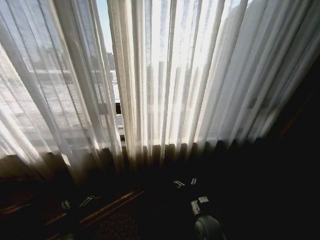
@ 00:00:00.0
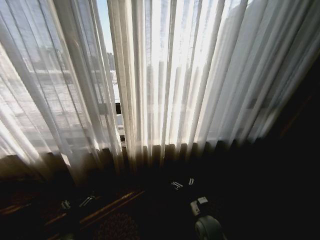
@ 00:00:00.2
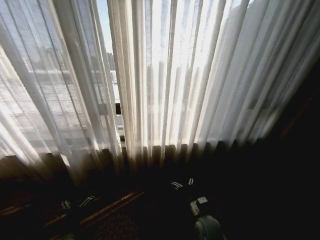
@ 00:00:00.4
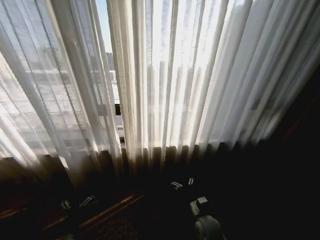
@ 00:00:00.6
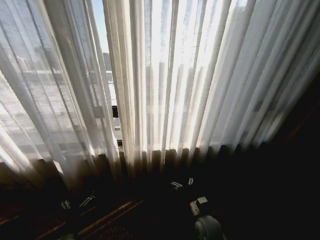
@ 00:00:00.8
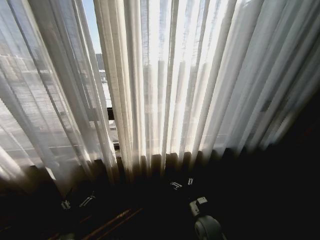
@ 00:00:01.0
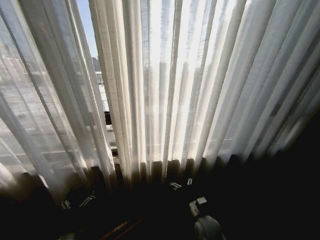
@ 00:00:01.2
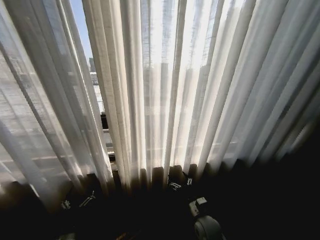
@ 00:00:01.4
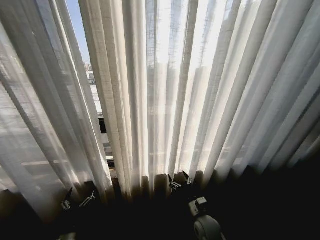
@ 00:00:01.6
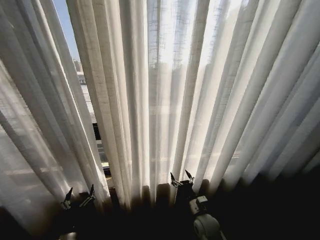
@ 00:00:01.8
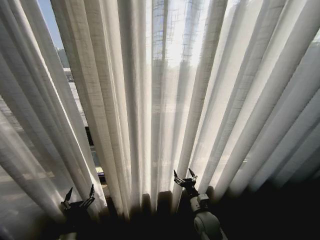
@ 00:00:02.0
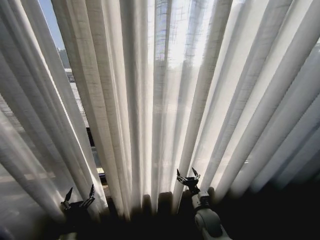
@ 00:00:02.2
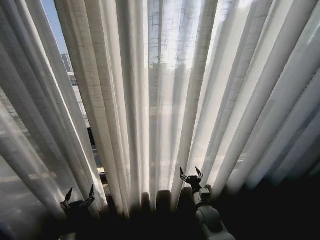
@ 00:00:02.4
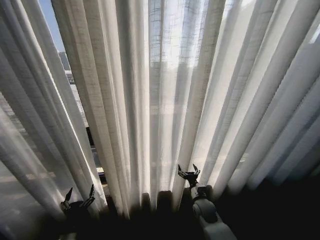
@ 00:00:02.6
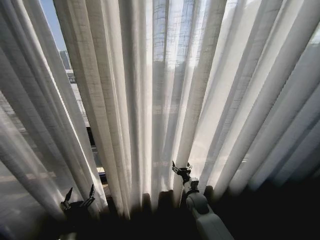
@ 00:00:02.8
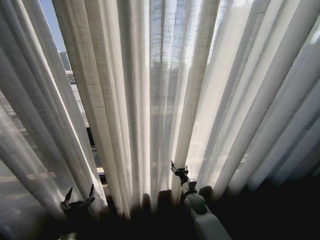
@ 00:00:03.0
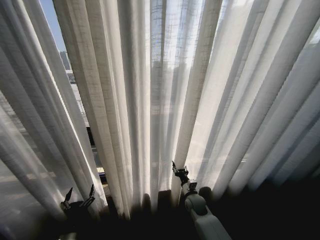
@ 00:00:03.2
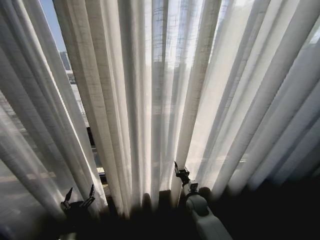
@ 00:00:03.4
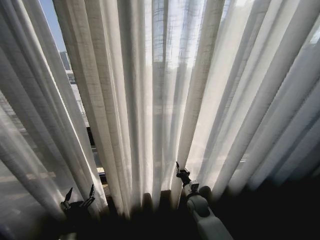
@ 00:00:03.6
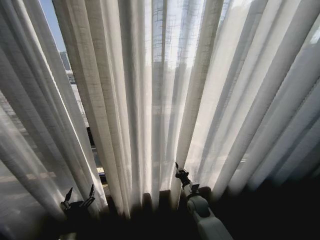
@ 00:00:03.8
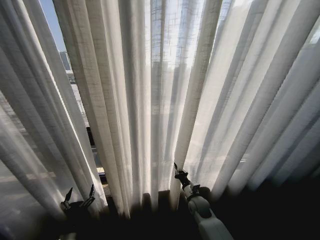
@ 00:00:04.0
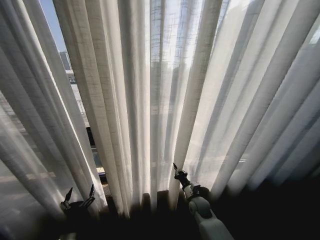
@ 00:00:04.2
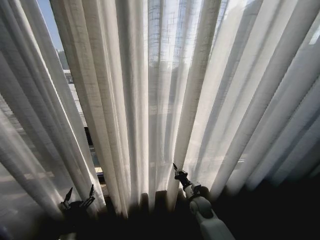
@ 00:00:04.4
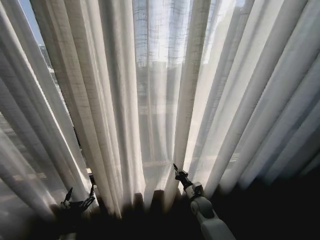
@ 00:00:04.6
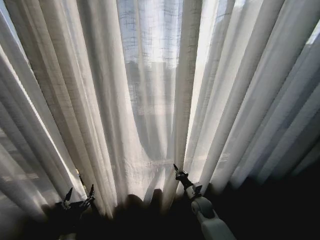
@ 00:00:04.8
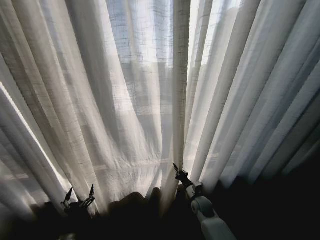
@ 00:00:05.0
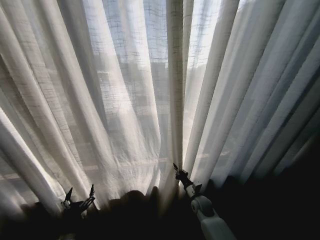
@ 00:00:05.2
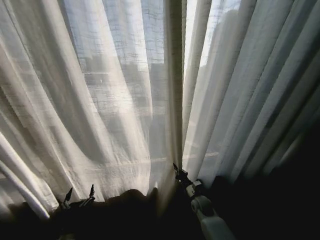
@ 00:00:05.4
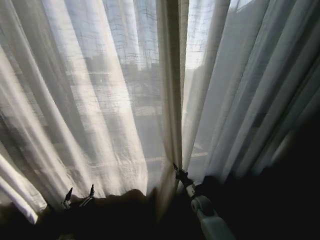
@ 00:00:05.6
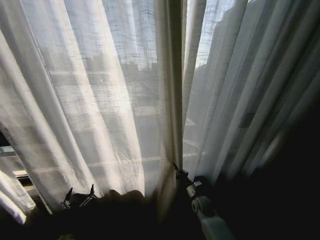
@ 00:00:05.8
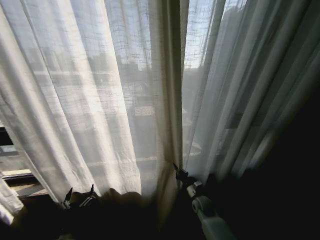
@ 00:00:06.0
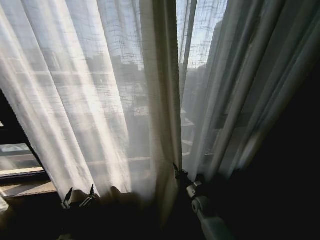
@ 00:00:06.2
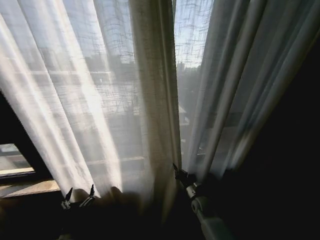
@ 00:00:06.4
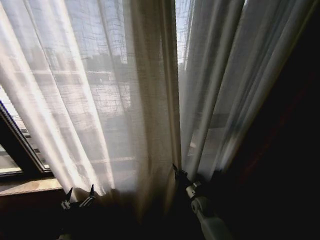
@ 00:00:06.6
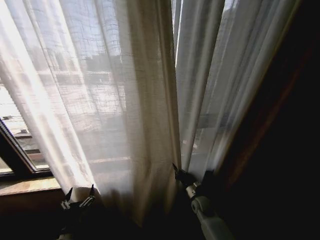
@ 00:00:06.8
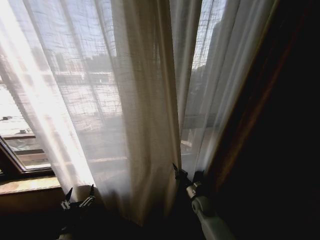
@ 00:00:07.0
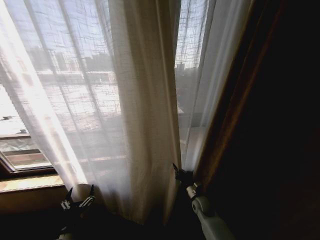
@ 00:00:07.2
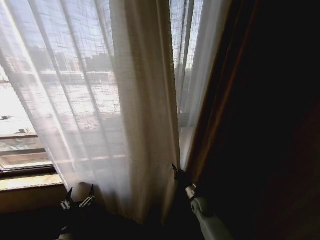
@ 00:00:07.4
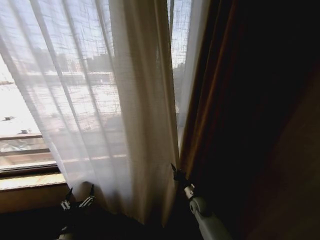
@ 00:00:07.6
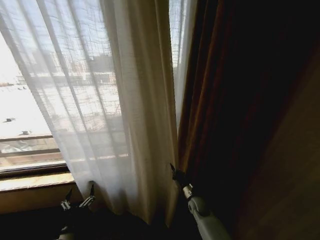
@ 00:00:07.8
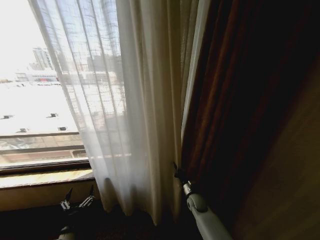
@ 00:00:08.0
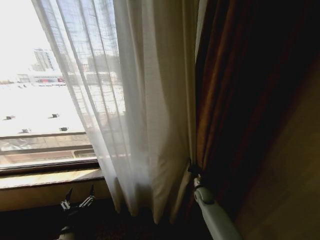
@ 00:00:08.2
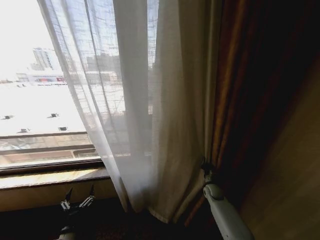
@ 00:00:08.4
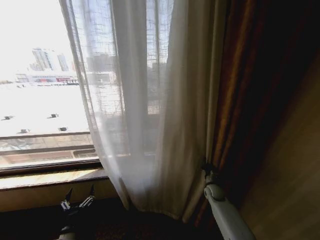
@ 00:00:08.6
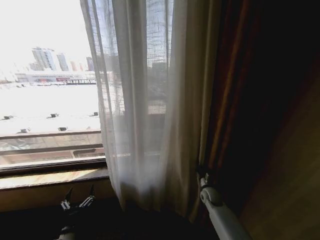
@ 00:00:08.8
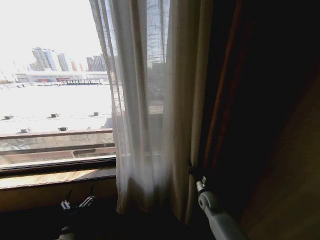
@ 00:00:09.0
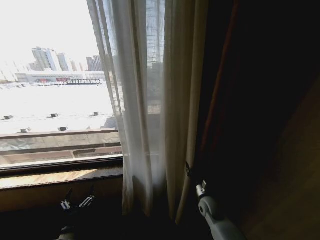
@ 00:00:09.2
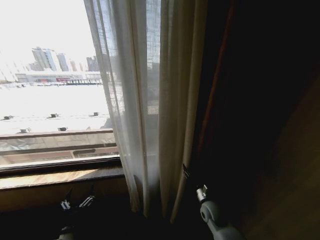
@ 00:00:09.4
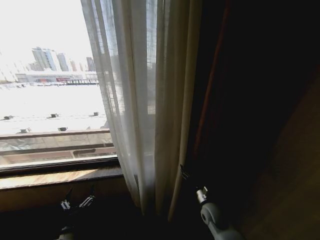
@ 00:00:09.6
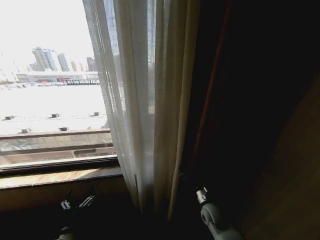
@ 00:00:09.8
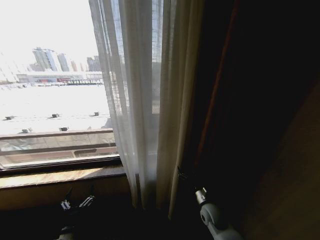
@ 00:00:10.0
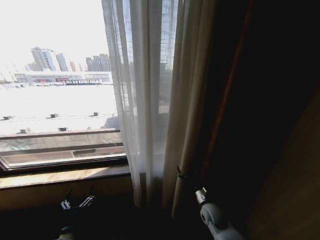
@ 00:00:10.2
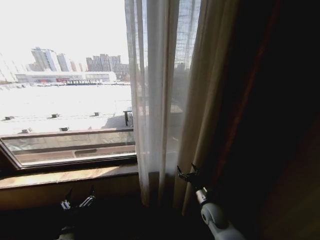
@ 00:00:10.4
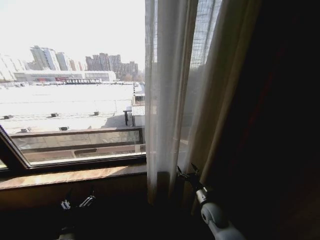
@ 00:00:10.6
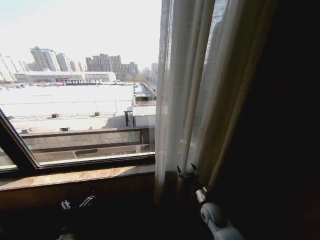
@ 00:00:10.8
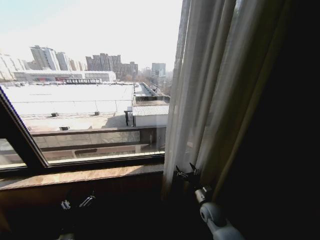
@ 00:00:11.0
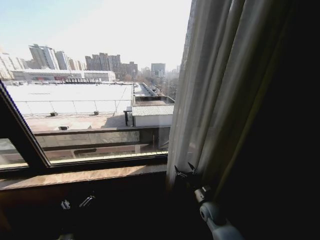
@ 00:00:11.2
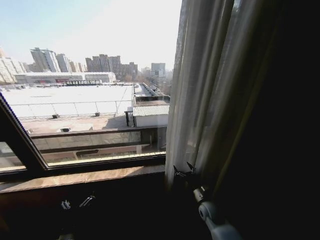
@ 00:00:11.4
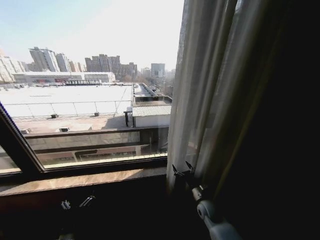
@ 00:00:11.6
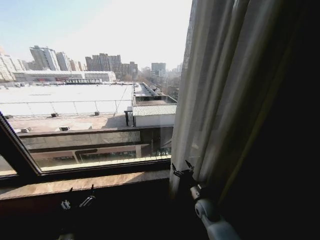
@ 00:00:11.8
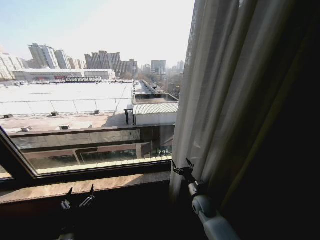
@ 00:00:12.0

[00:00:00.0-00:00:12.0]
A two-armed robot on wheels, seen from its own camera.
Task of the whole recording: Open the curtains by pulling them apart, changing their state from closed to fully open.
00:00:01.6 to 00:00:03.0: The right gripper goes about 10 cm forward.
00:00:03.0 to 00:00:04.4: The right gripper closes its fingers.
00:00:09.0 to 00:00:10.4: The right gripper goes about 5 cm backward, and opens.

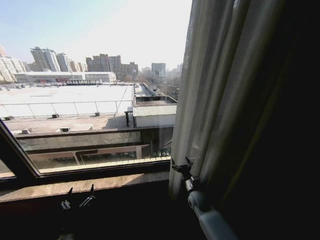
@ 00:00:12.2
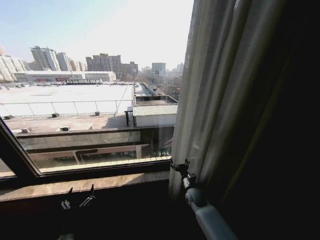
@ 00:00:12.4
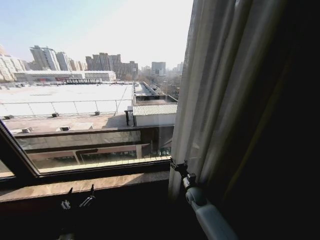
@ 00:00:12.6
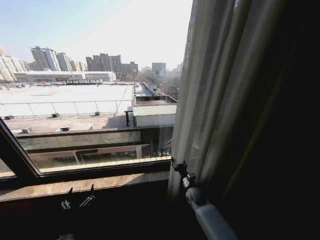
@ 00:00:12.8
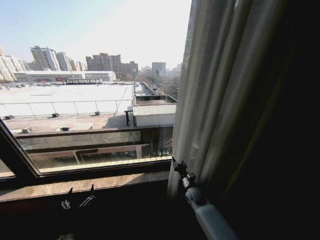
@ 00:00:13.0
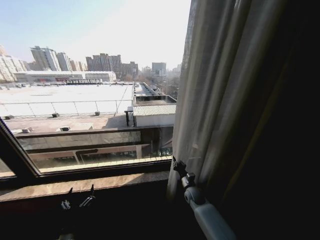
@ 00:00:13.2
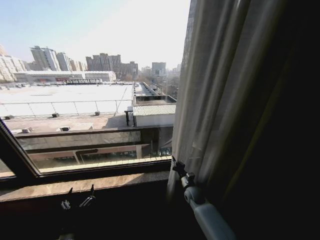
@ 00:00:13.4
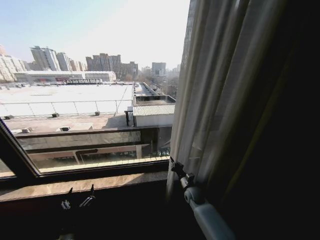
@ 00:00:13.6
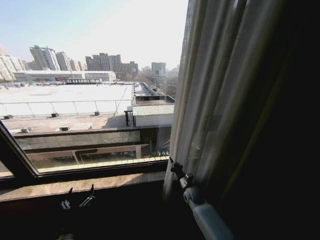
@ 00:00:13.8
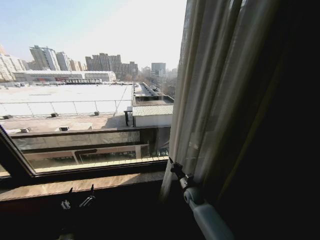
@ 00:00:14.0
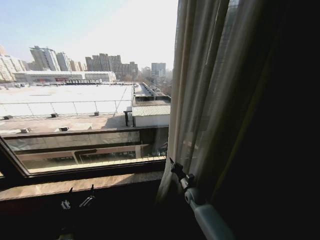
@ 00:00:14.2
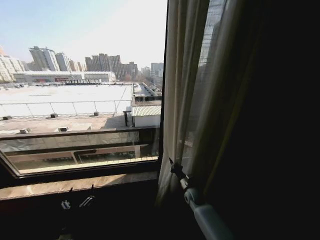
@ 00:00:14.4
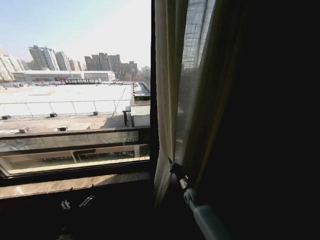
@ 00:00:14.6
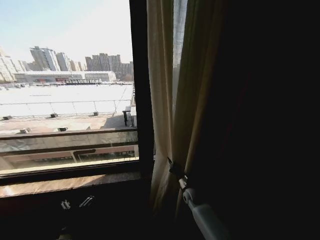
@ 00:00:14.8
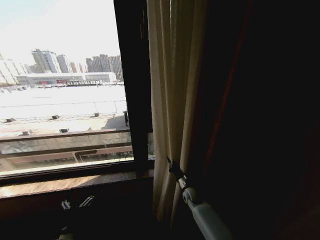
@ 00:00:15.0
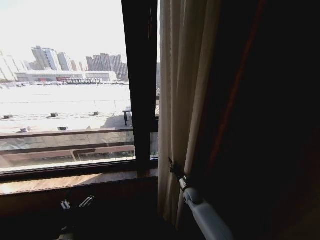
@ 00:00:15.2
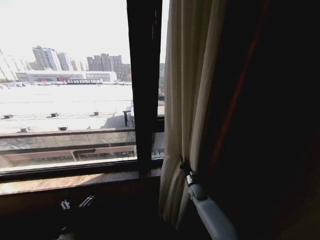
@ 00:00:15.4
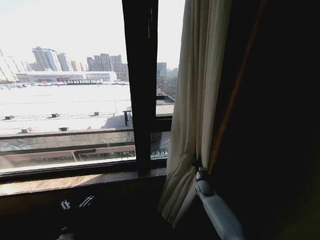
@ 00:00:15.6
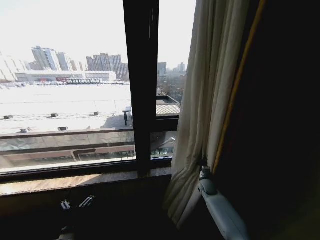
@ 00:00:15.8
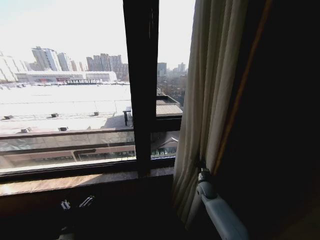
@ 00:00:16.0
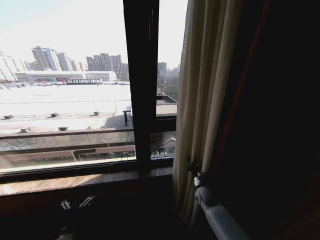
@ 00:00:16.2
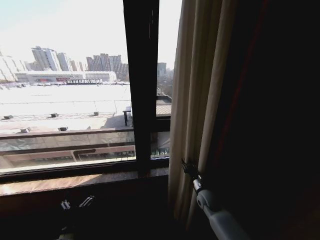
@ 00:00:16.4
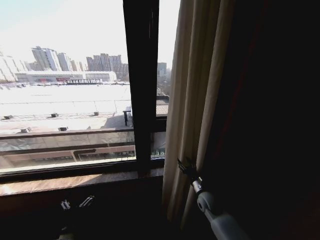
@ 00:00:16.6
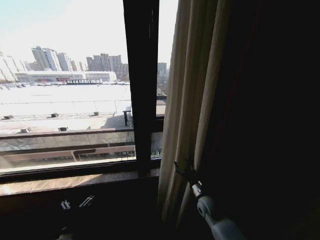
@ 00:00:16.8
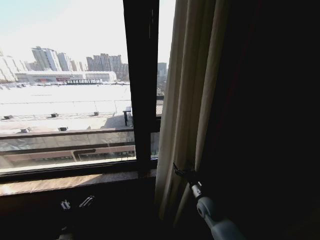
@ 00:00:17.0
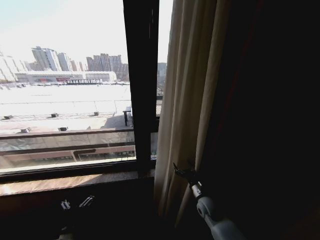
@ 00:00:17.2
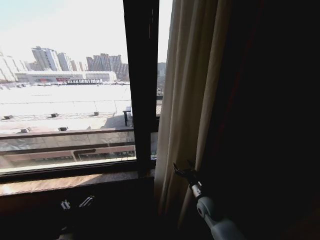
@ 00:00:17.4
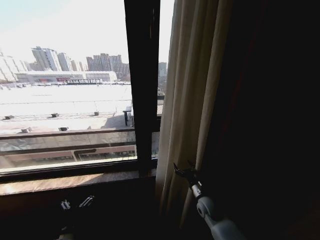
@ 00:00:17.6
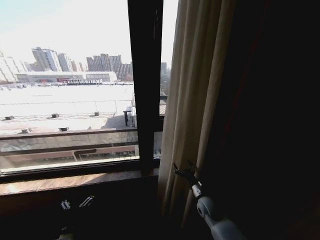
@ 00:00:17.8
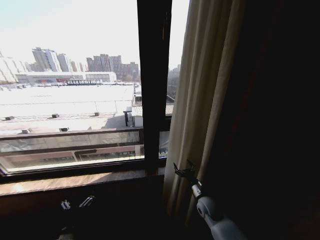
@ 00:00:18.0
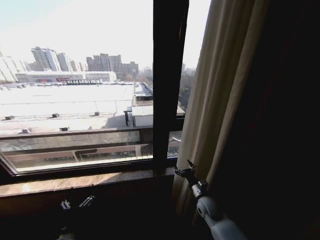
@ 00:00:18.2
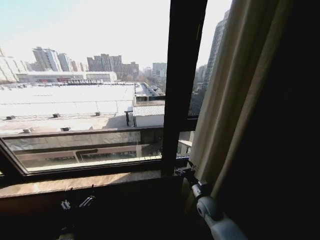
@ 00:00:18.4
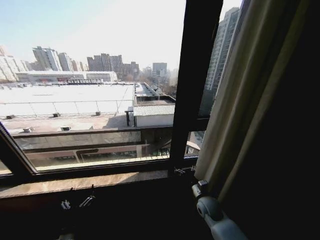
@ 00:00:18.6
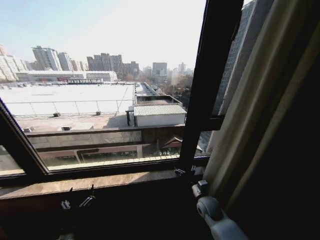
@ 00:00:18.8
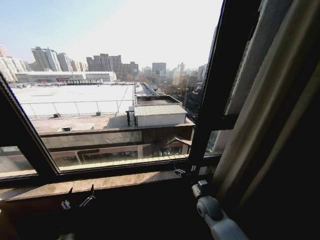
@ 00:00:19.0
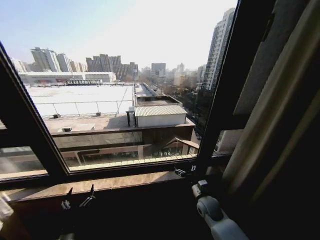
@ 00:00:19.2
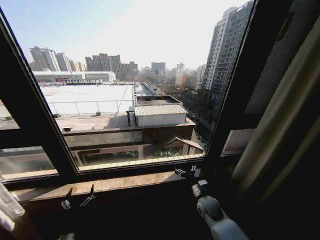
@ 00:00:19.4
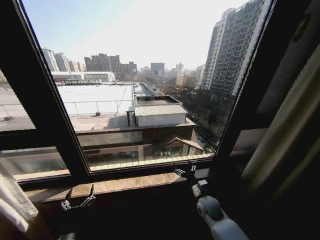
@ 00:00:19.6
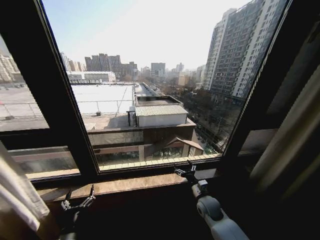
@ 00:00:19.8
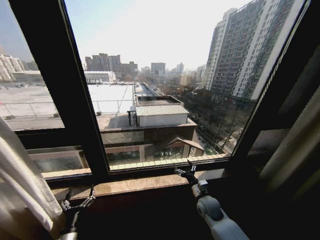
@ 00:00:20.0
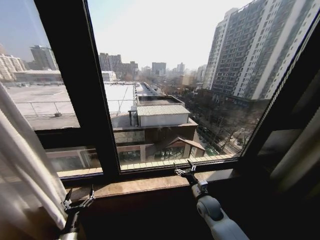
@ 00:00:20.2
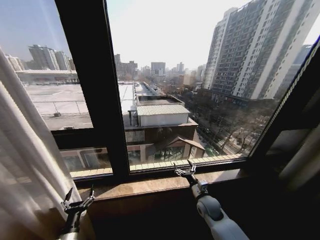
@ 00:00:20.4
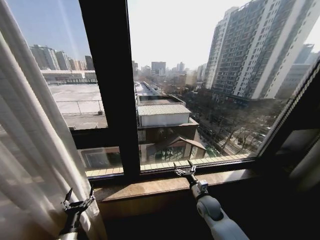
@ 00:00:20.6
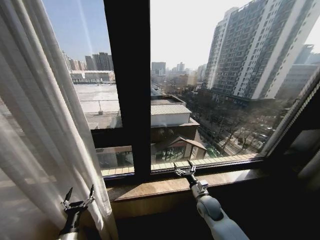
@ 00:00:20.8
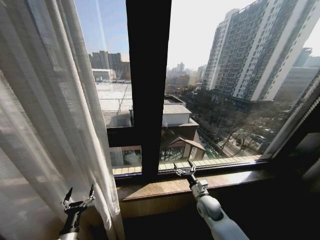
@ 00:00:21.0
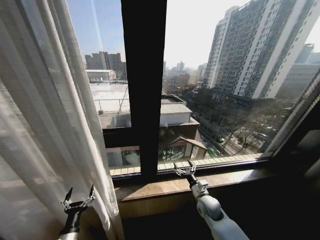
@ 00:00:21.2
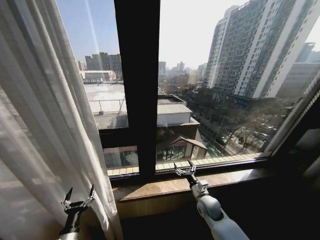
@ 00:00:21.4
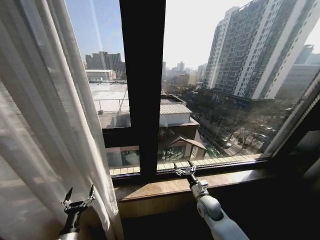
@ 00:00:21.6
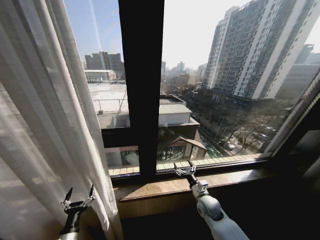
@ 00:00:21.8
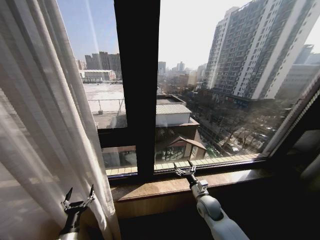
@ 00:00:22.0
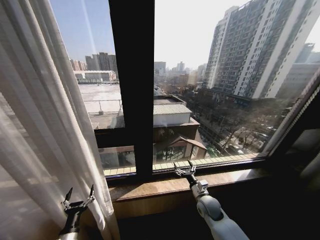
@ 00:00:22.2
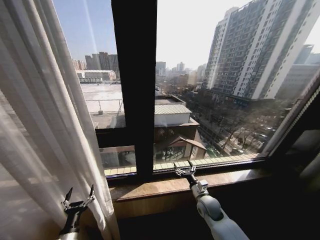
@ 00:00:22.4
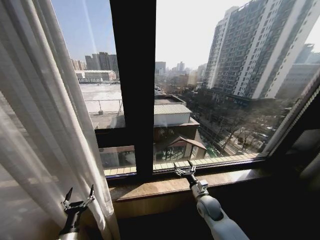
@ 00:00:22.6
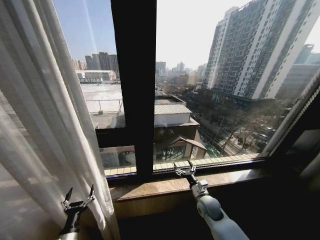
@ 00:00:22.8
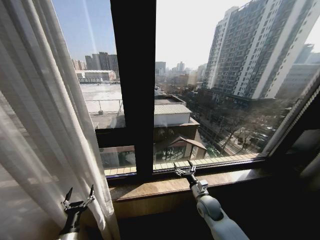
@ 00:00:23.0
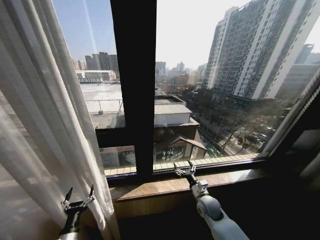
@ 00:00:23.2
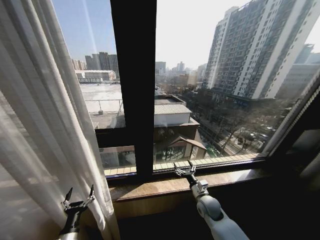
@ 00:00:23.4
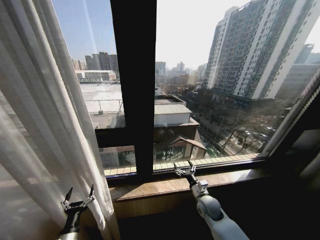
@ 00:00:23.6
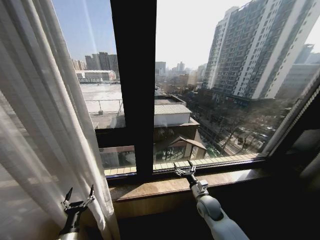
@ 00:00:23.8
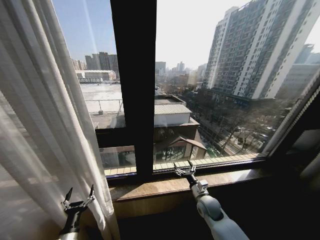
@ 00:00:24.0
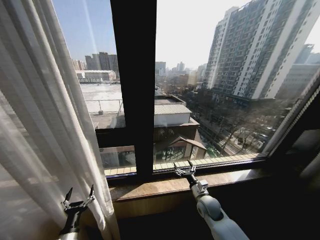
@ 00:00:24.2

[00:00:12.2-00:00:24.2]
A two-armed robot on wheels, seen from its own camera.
Task of the whole recording: Open the curtains by pulling them apart, changing their state from closed to fully open.
00:00:12.2 to 00:00:13.8: The right gripper closes.
00:00:15.2 to 00:00:16.6: The right gripper shifts some 10 cm upward and backward, and opens up.
00:00:16.6 to 00:00:18.2: The right gripper opens up.
00:00:21.2 to 00:00:24.2: Neither gripper changes place.
